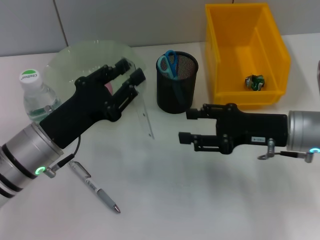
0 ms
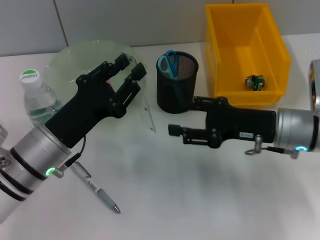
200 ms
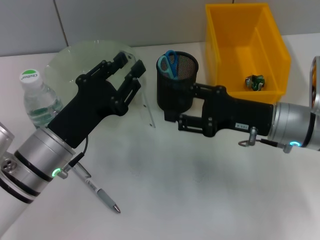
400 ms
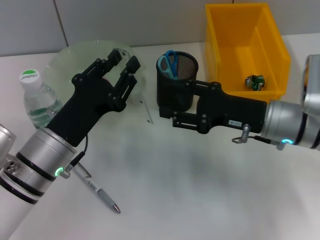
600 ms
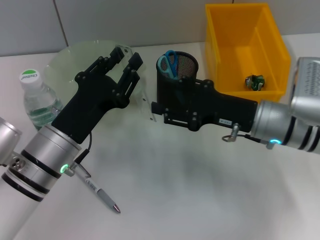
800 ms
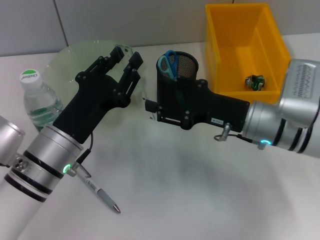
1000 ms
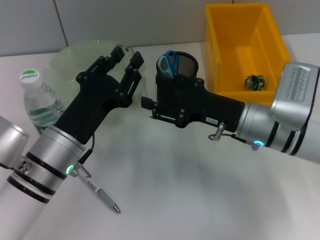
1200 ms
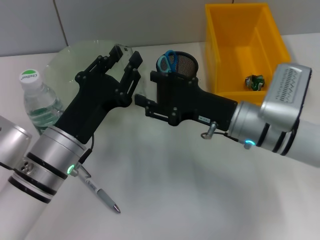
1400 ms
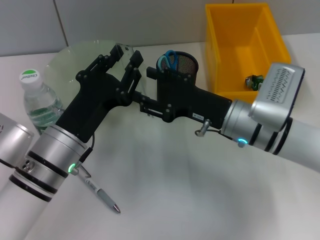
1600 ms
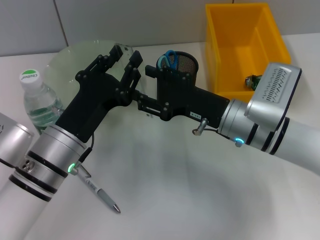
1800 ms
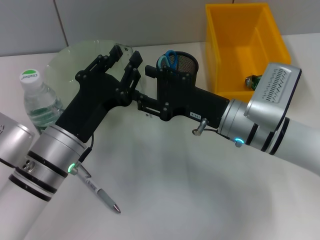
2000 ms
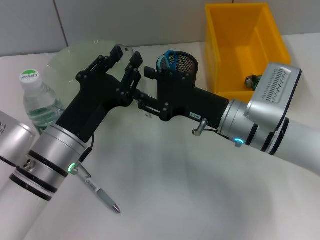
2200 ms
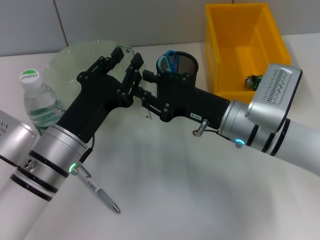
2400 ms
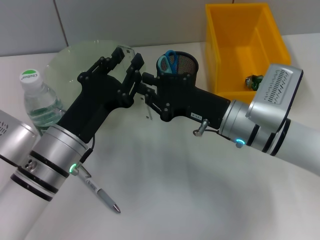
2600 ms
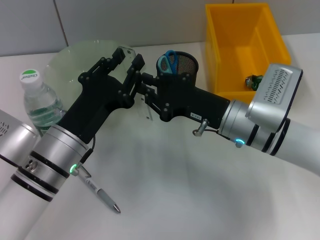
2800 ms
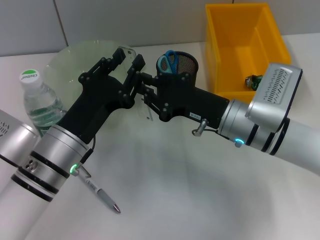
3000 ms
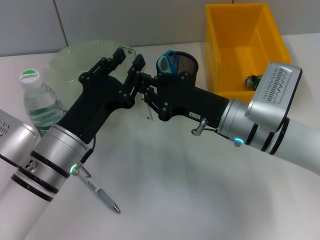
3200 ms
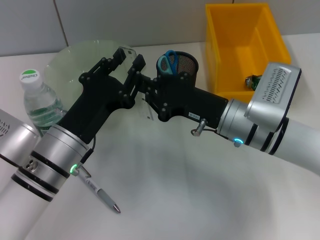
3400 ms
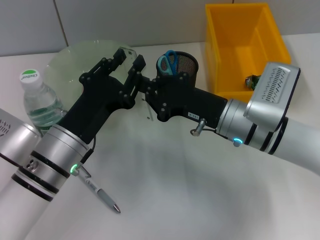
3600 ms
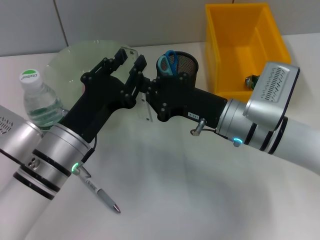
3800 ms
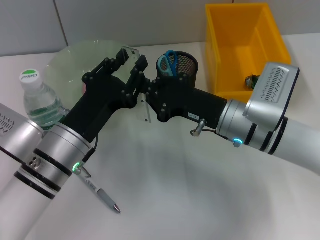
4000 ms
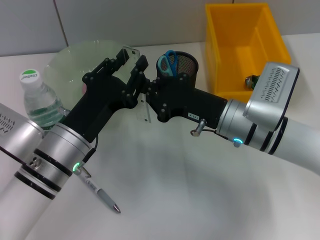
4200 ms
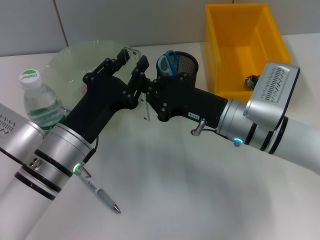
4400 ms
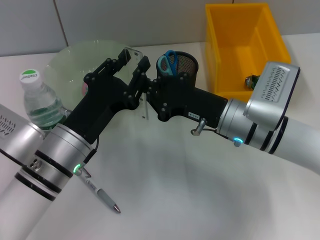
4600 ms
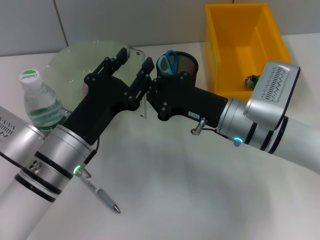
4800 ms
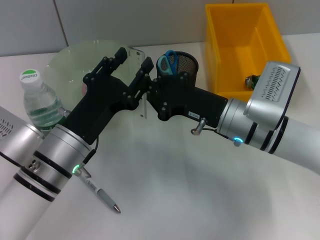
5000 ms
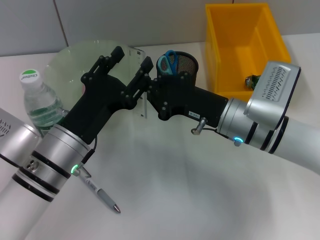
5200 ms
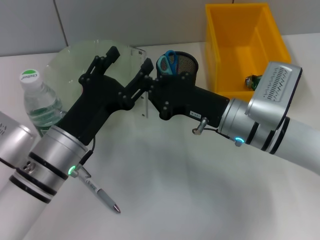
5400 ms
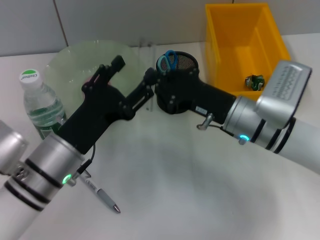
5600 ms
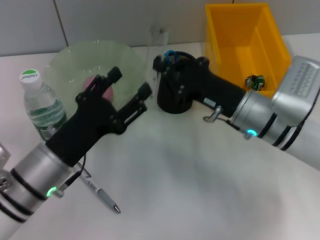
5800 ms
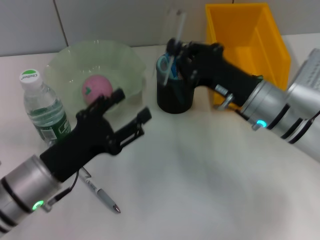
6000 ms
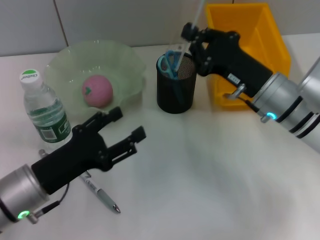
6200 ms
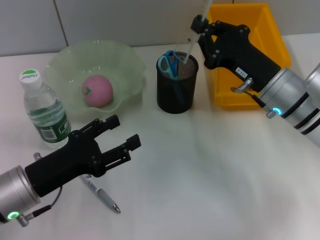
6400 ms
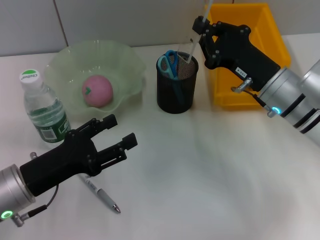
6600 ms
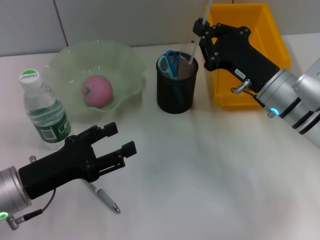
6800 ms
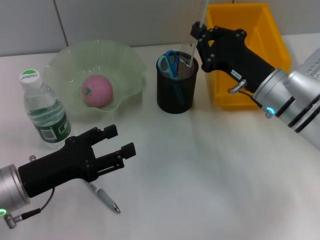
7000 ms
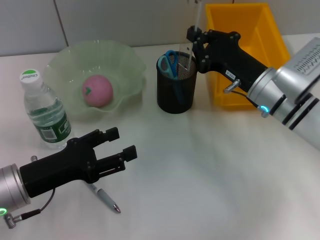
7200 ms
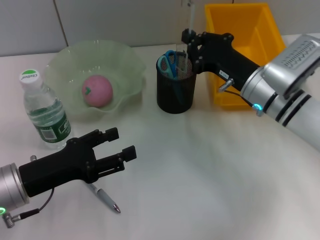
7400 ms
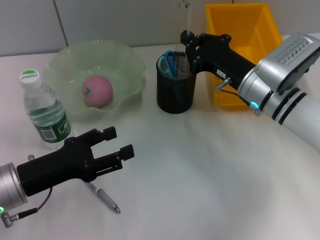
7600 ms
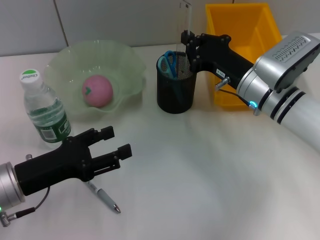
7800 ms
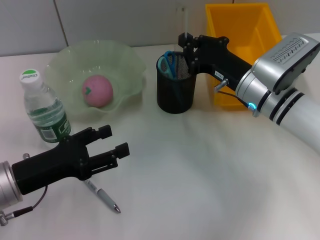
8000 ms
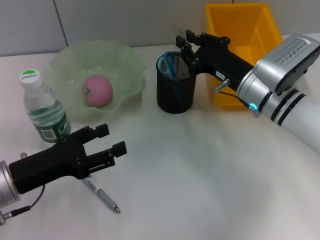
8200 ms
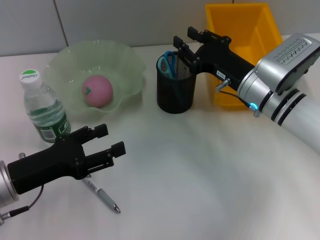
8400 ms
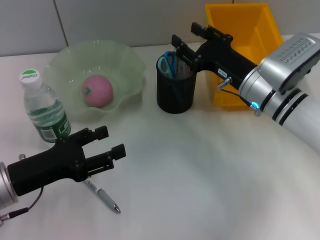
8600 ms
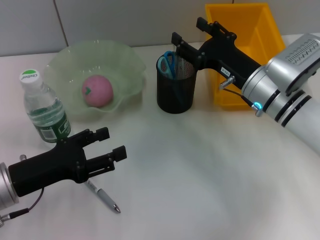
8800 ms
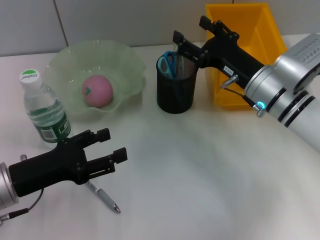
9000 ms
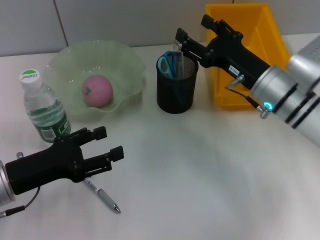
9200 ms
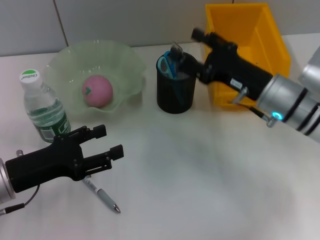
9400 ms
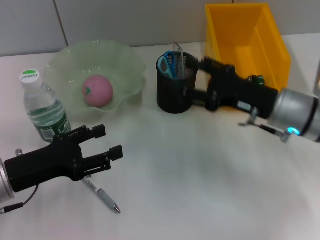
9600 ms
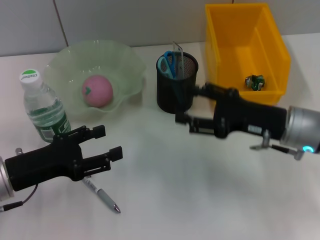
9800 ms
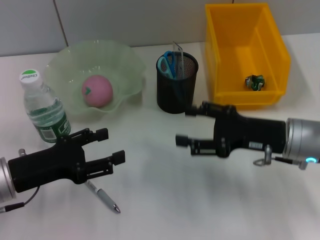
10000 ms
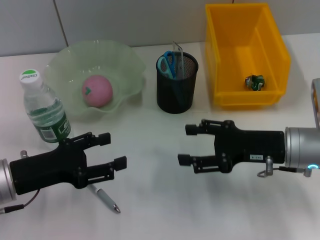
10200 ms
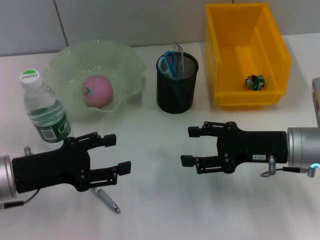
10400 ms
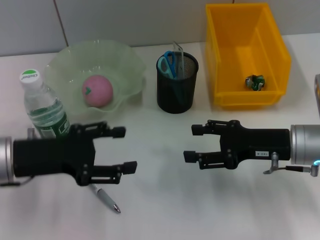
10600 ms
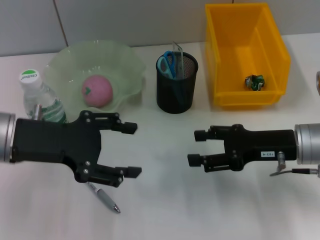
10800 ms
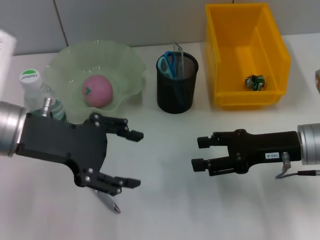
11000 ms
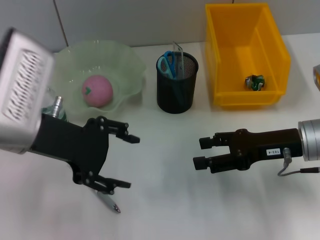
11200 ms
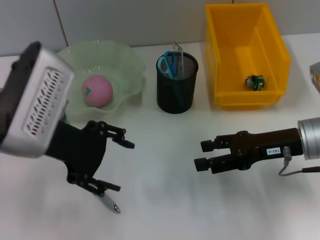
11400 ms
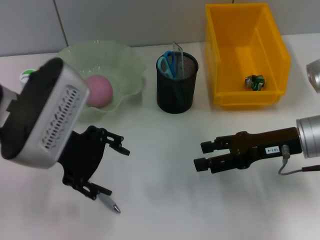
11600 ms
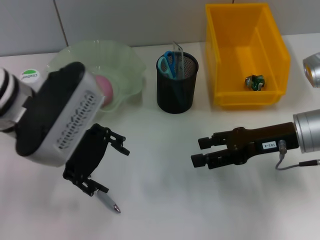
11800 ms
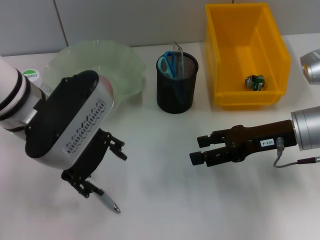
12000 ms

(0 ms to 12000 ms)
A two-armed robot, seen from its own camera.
Step, 0 ms - 5200 ms: Pass the ruler from the left hand to the right hand.
Step, 5400 ms - 8400 ms: Place the ruler into the pen holder with the right hand.
0 ms - 1600 ms: The right gripper moves to the left, about 10 cm.
1600 ms - 3000 ms: The right gripper closes its fingers.
3000 ms - 4400 ms: Both grippers stay about where they are.
4400 ms - 6000 ms: The left gripper moves to the left, roughly 5 cm, and opens.
7600 ms - 9000 ms: The right gripper opens up.
9000 ms - 10400 ms: The right gripper shifts about 5 cm backward.
10400 ms - 12000 ms: The left gripper is displaced upward, to the right and forward by some 15 cm.

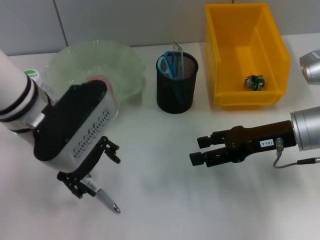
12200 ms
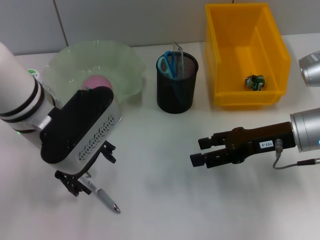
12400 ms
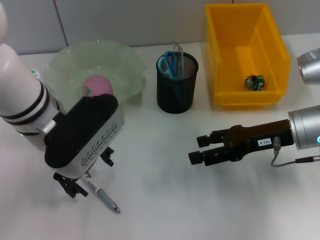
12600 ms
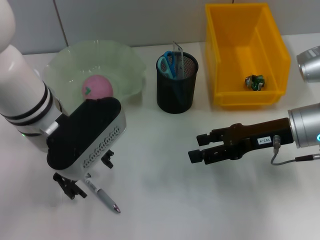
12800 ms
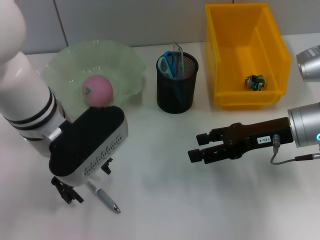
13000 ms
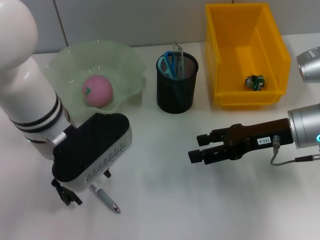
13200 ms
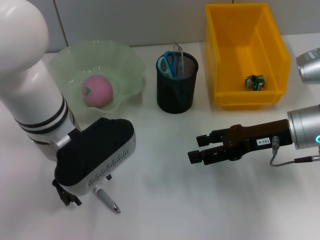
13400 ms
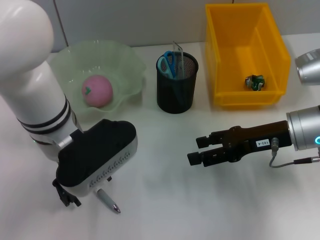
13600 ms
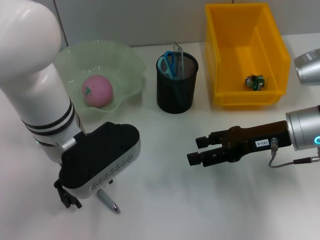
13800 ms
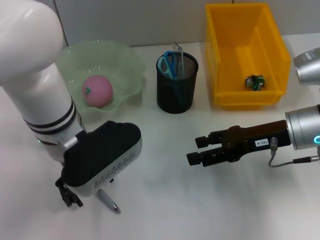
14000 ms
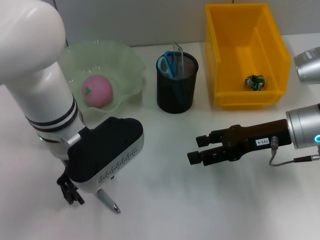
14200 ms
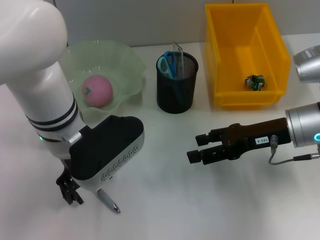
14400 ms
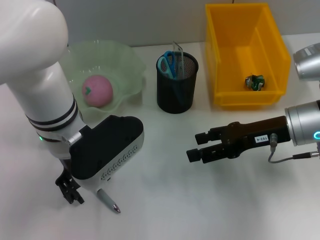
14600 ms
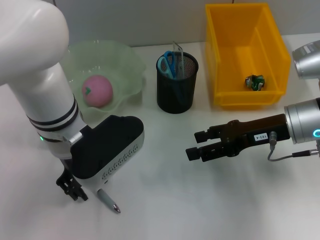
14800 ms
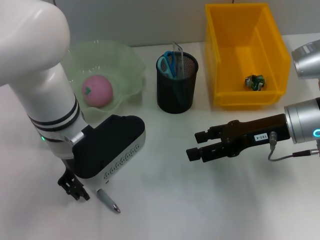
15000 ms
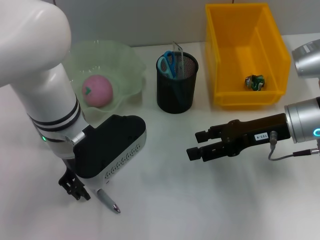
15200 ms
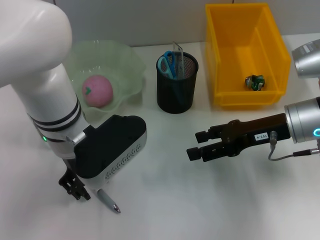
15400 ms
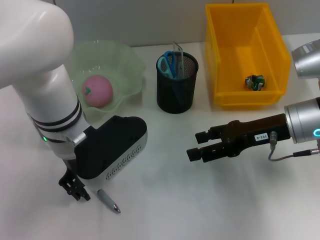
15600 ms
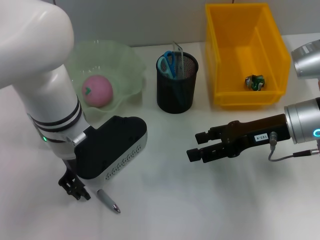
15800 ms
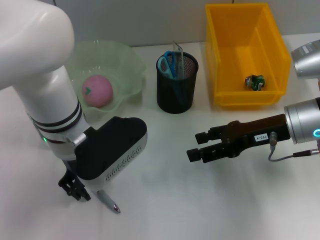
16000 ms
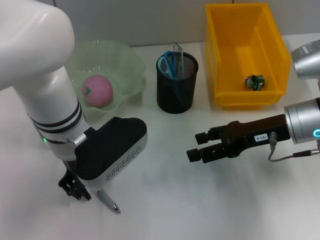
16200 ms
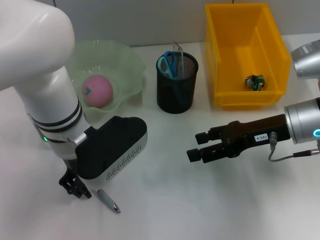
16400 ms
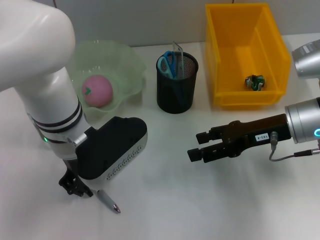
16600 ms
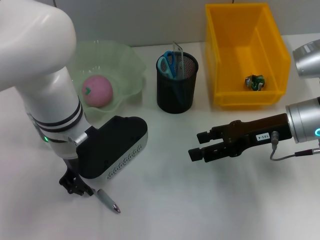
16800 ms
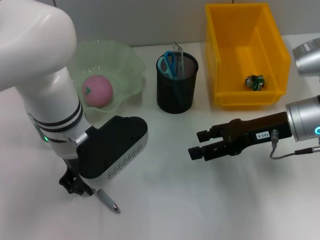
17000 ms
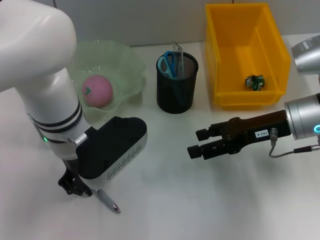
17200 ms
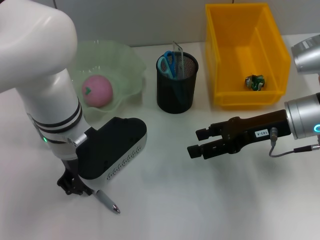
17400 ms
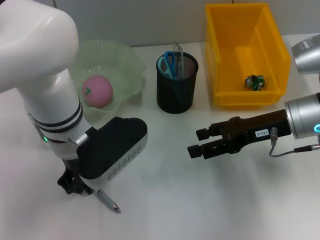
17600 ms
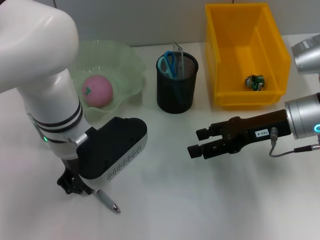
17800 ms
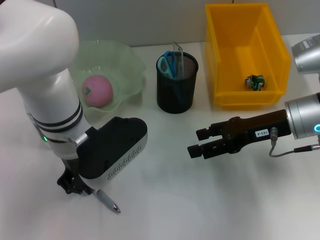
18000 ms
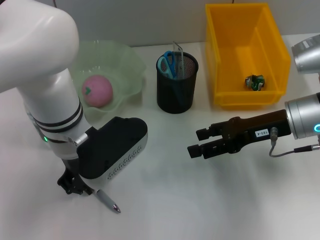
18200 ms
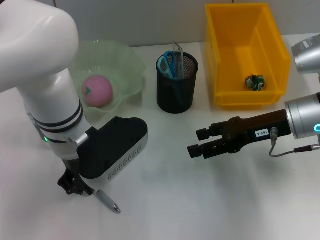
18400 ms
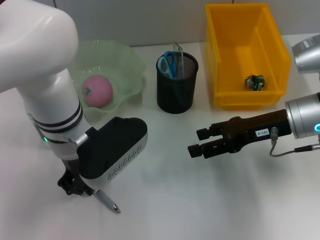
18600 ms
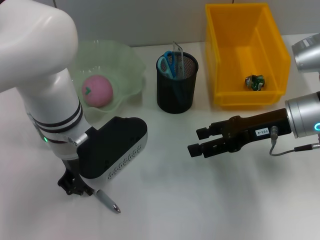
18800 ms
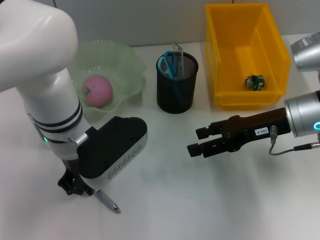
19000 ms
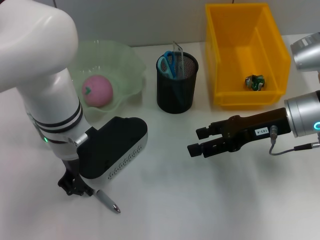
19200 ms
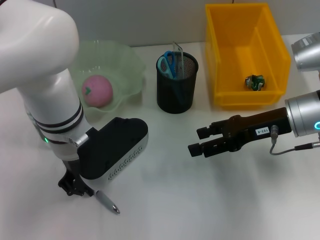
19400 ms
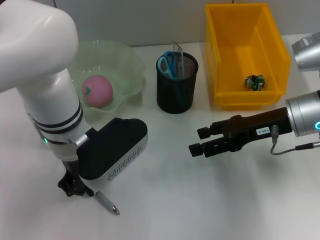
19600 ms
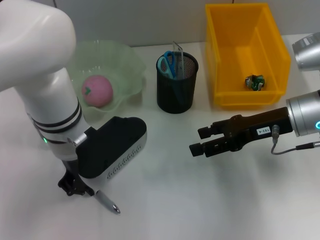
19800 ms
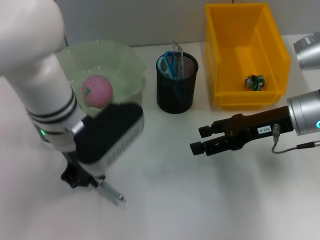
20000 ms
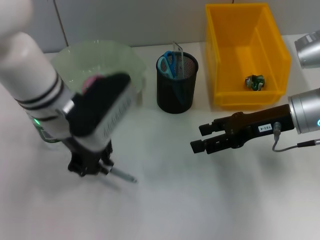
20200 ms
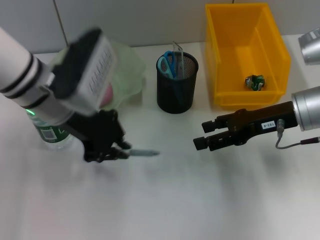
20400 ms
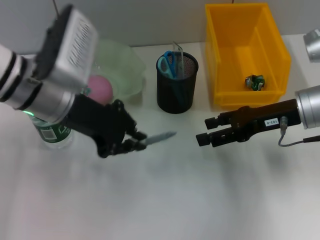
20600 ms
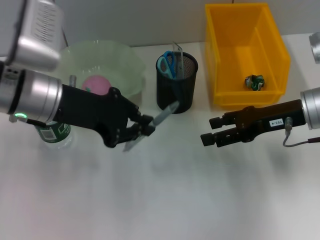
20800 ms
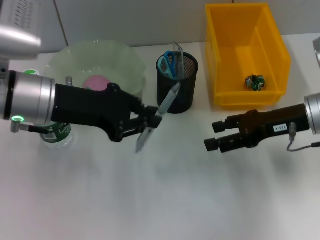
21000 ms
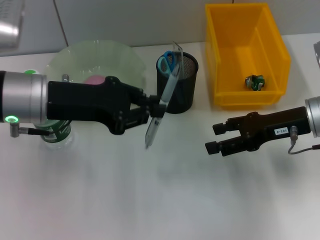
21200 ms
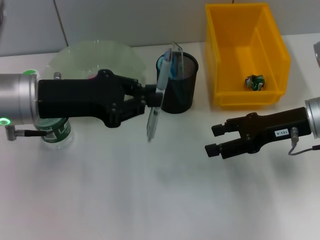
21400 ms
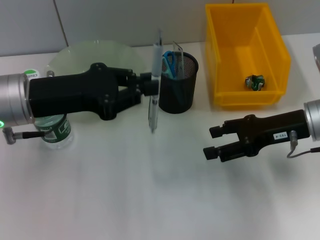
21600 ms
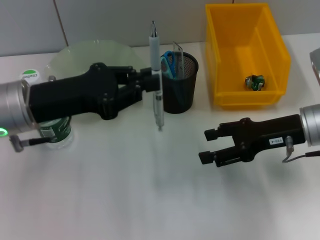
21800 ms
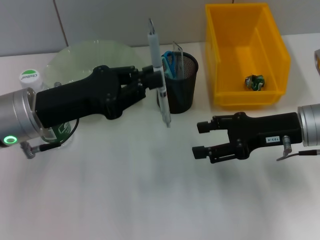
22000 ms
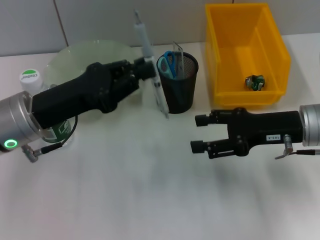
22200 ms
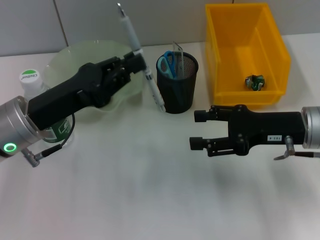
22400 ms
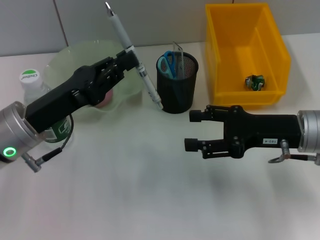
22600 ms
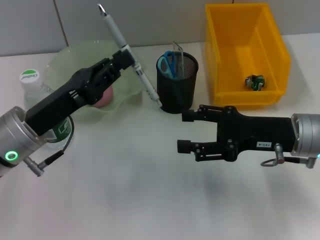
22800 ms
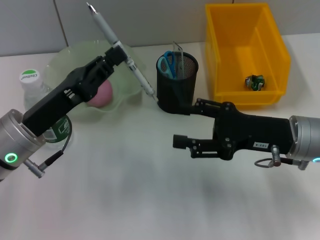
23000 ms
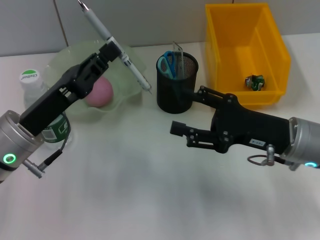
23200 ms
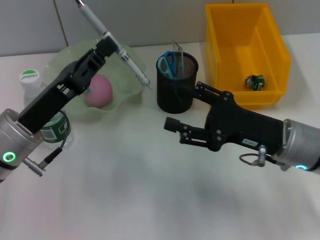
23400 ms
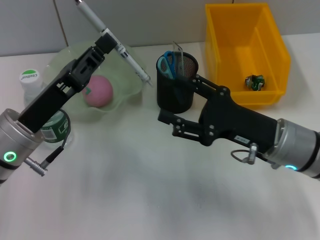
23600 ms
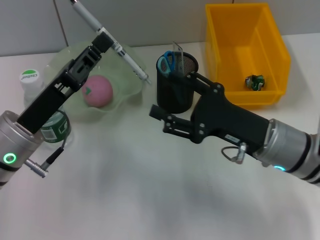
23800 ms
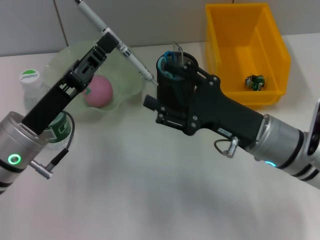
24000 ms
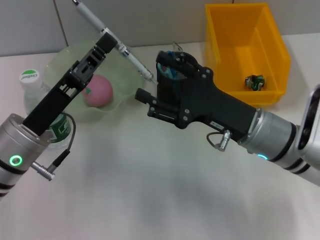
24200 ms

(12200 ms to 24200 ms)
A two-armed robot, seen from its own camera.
Step, 12200 ms - 19600 ms: Grab the gray spring-action pen with the left hand.
13800 ms - 15200 ms: There are only small adjustments of the grippers.
15200 ms - 19800 ms: Neither gripper changes place.
19800 ms - 21200 ms: The left gripper shifts roughly 10 cm to the left.
21200 ms - 22600 ms: The left gripper shifts about 5 cm downward.
22600 ms - 24200 ms: The right gripper goes approximately 10 cm to the left.
